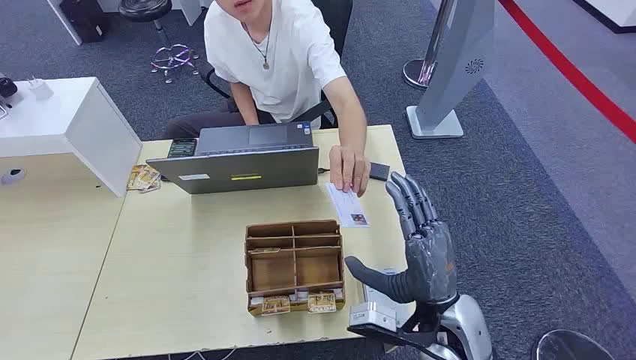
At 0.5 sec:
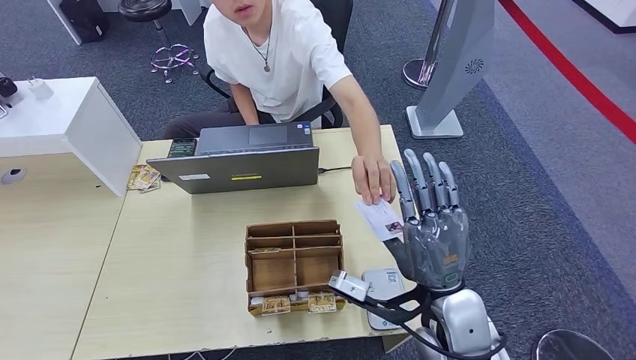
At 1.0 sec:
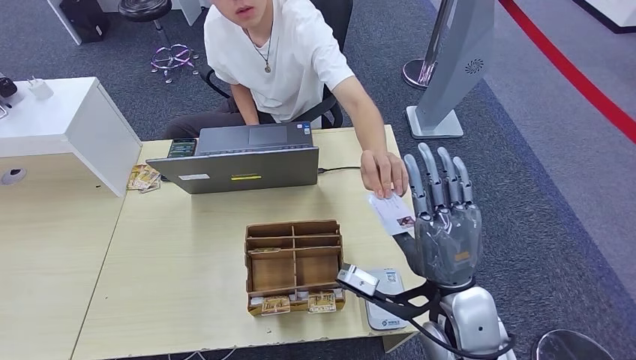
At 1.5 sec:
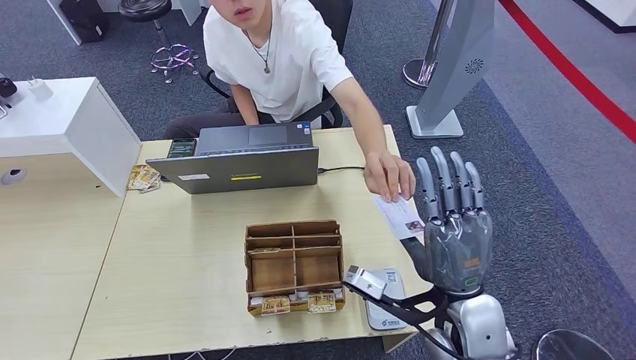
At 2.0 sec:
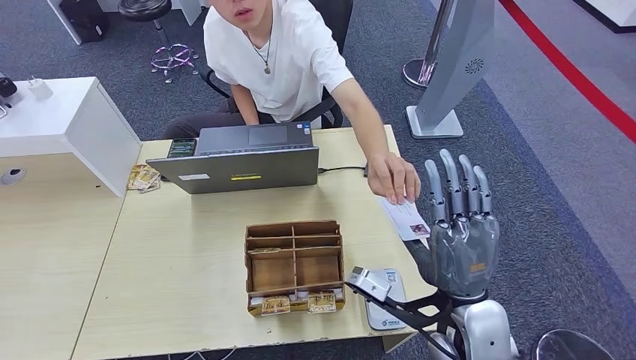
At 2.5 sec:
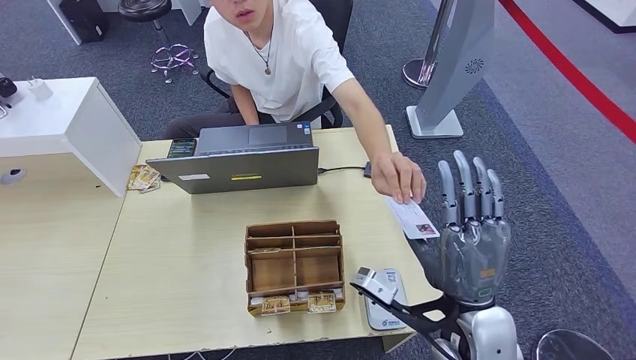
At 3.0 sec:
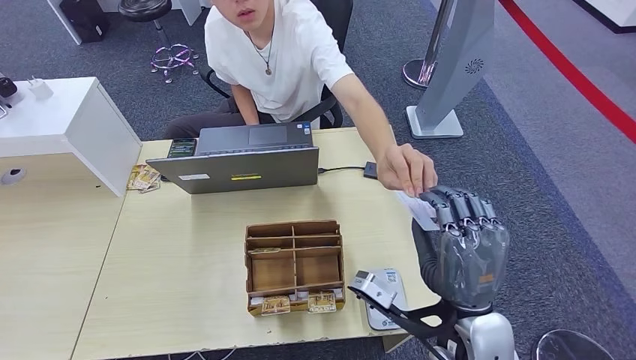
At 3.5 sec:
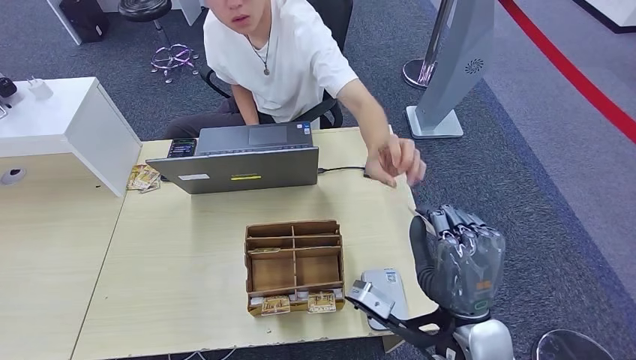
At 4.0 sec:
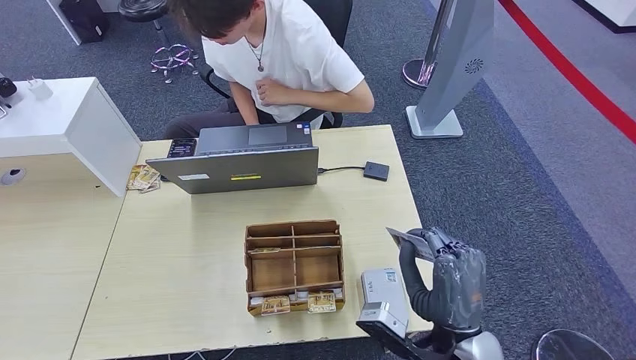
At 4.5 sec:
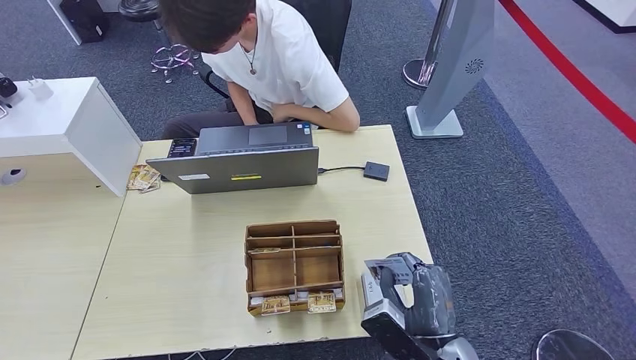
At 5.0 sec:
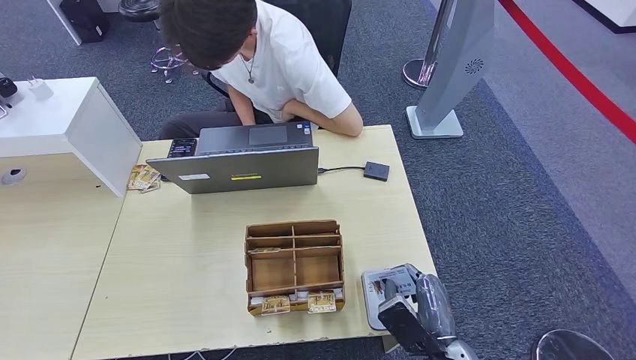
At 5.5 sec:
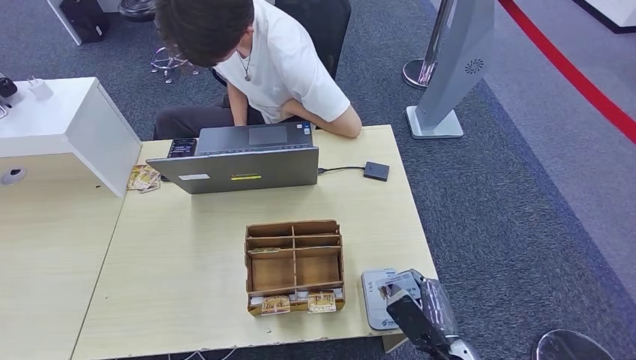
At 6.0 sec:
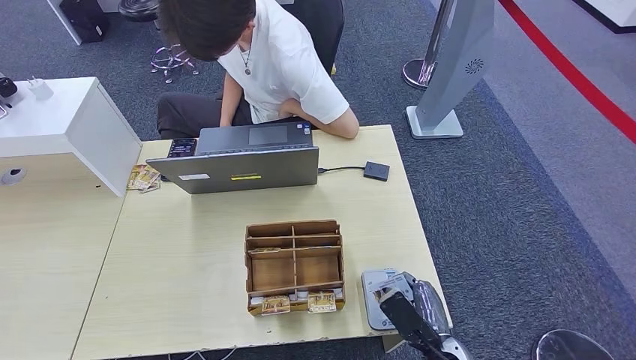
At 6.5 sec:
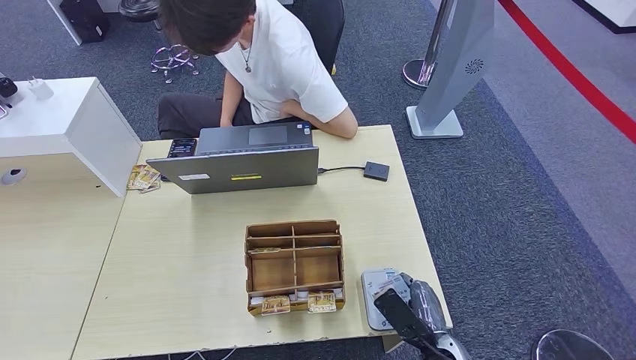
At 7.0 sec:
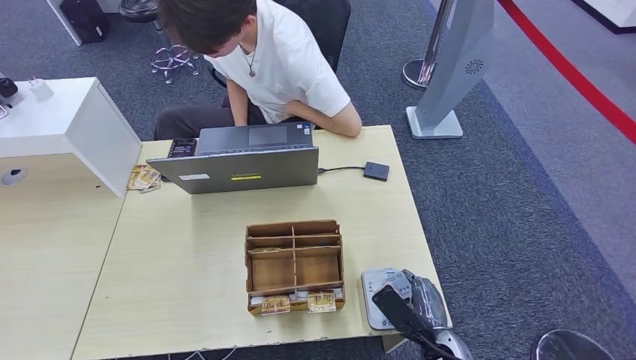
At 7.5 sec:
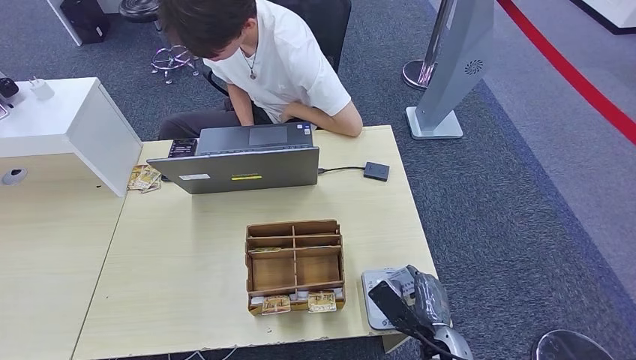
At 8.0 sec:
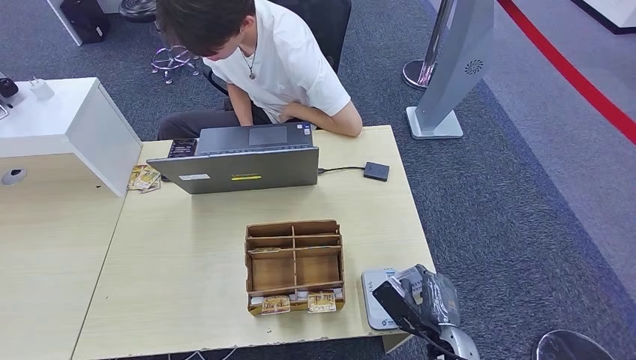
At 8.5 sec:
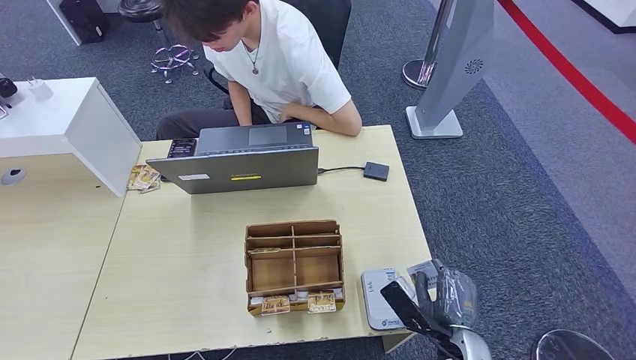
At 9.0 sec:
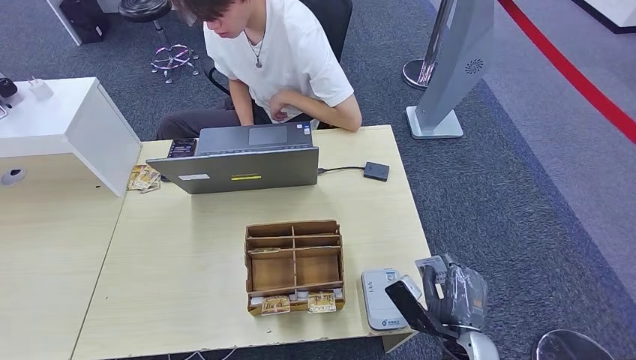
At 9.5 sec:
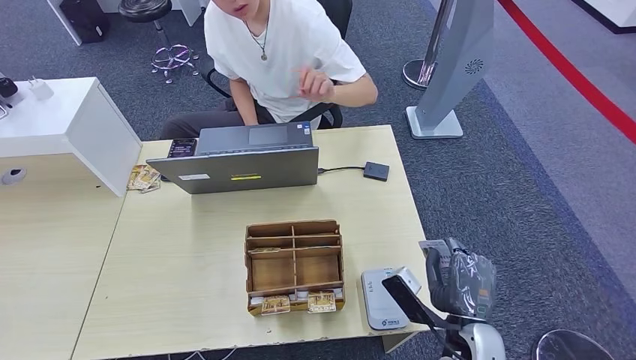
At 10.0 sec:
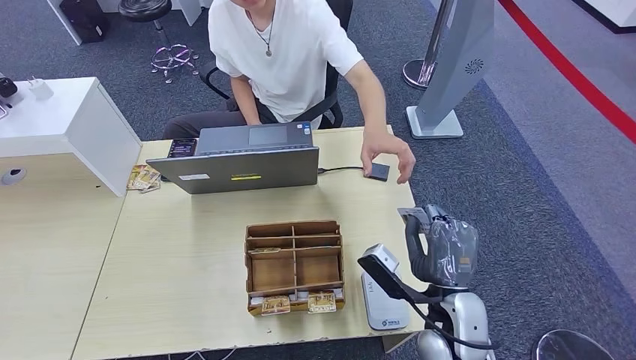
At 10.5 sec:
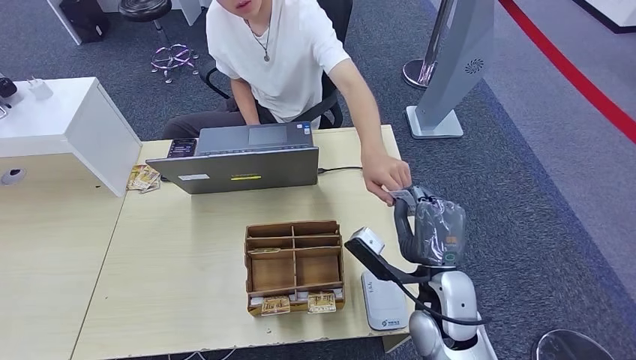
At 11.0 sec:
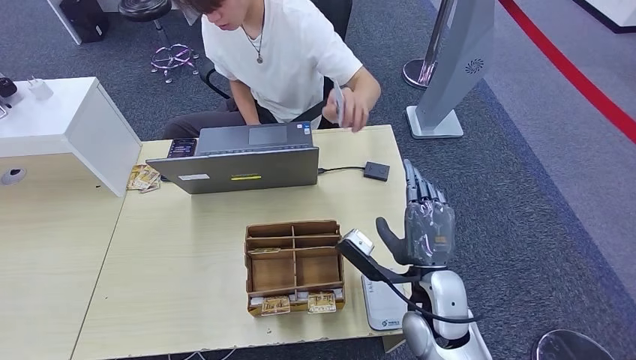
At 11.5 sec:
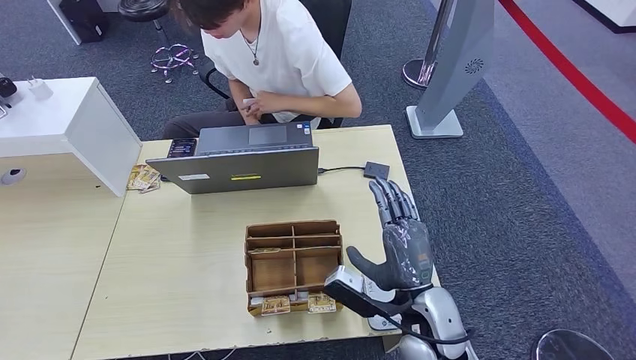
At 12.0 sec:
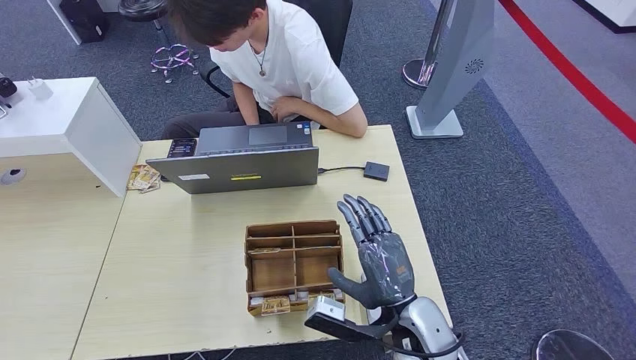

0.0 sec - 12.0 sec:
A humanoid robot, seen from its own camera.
Step, 0.0 sec - 4.0 sec: Take the ID card from the person's hand.
Step, 4.5 sec - 10.0 sec: Place the ID card on the card reader.
Step, 10.5 sec - 11.5 sec: Hand the ID card to the person.
2.0 sec - 4.0 sec: The right hand ends up some 5 cm from where it was.
4.0 sec - 6.0 sec: The right hand heads downward, covering about 15 cm.
8.0 sec - 10.0 sec: The right hand heads upward, covering approximately 10 cm.
10.0 sec - 12.0 sec: The right hand is displaced to the left by roughly 5 cm.

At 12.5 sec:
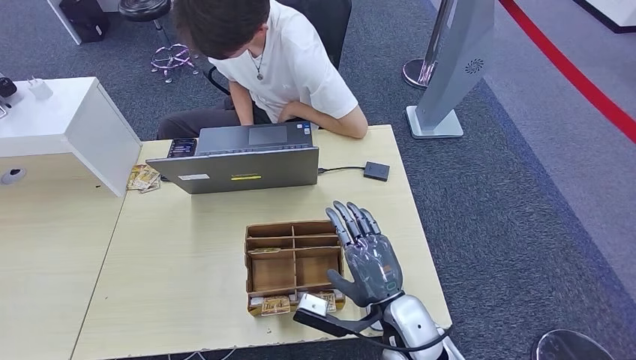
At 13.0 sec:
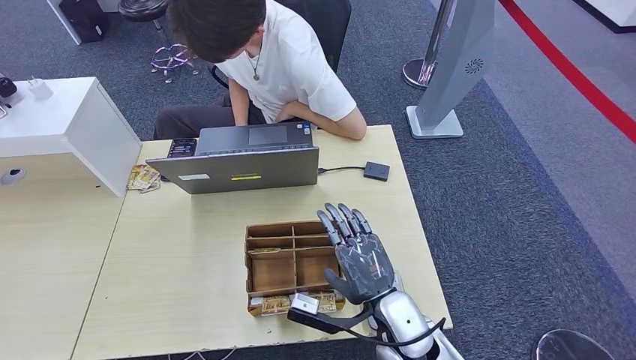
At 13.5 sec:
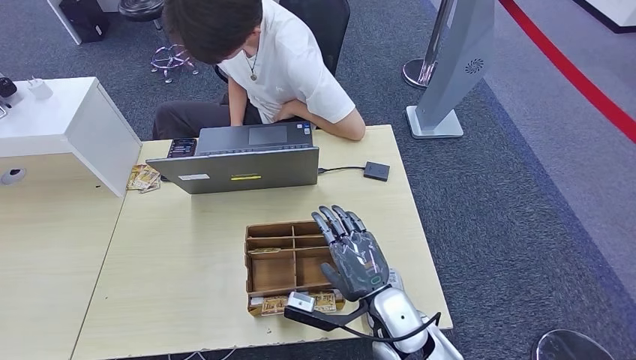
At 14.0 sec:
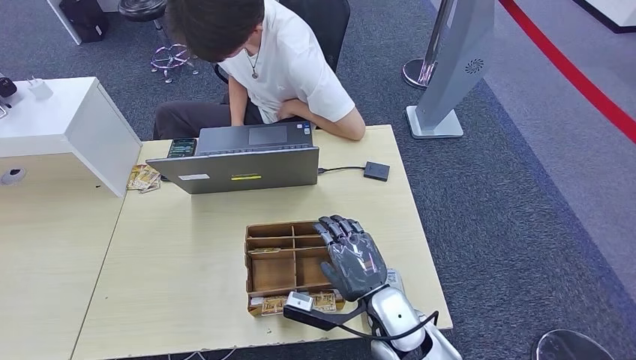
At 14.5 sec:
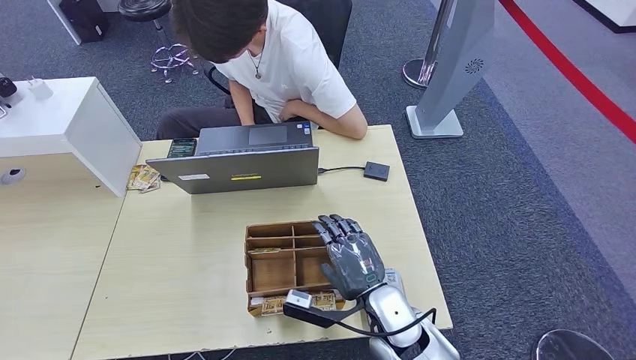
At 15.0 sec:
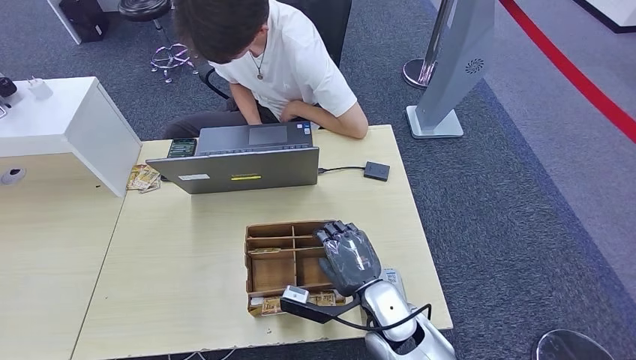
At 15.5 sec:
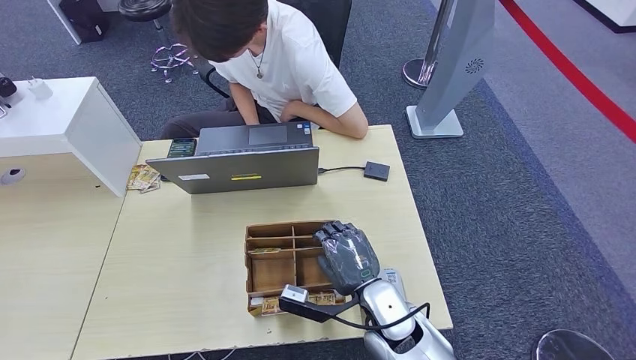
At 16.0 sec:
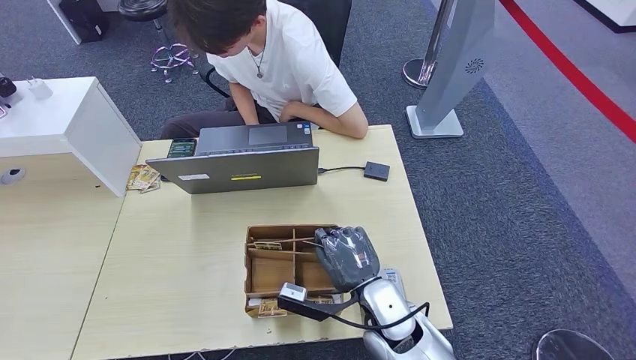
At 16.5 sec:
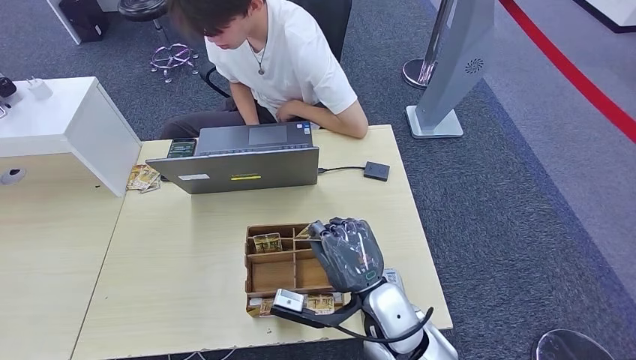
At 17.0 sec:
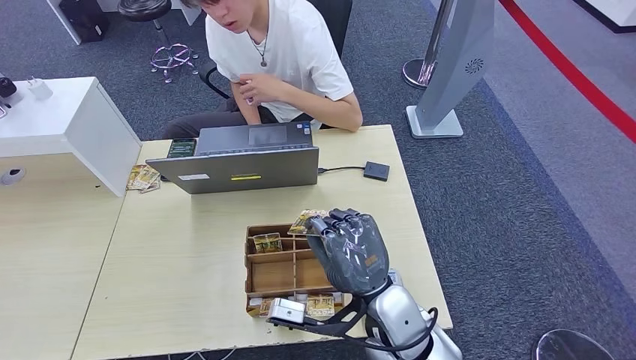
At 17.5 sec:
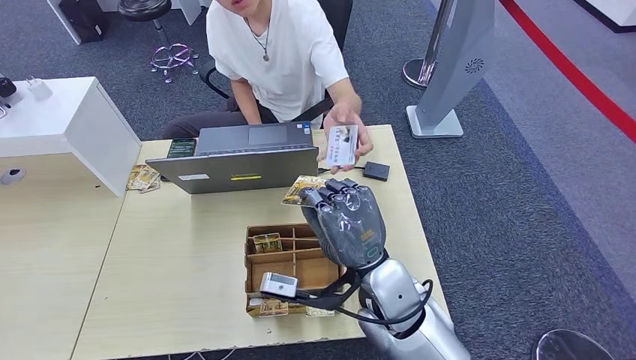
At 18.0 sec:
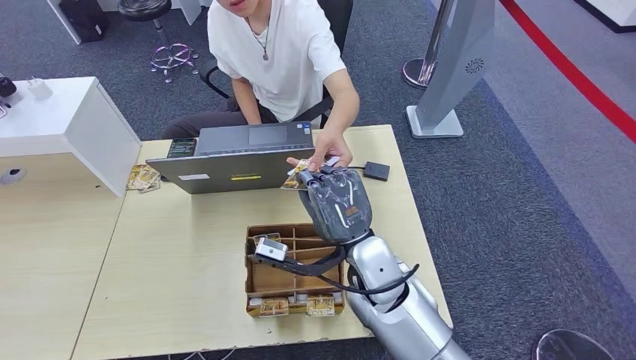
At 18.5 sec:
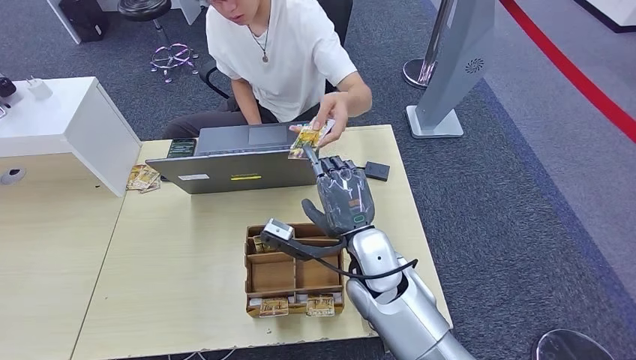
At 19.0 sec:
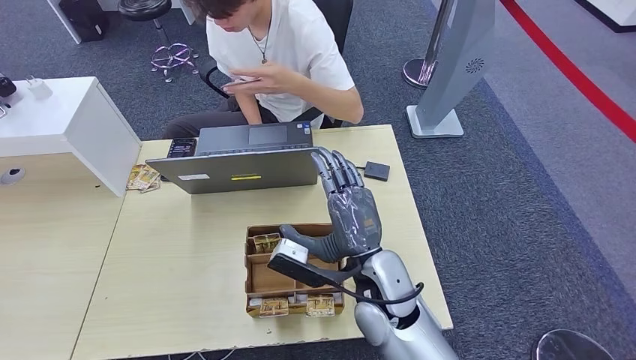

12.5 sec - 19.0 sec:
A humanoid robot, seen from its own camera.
Step, 15.0 sec - 17.0 sec: Pick up the room key from the key card box.
Step, 17.5 sec - 19.0 sec: Hand the room key to the person.
12.5 sec - 14.5 sec: There are only small adjustments of the hands.
14.5 sec - 17.0 sec: The right hand goes roughly 5 cm upward.
